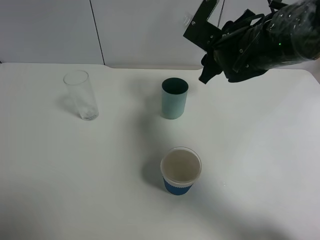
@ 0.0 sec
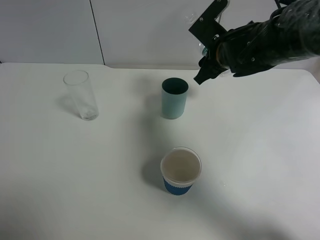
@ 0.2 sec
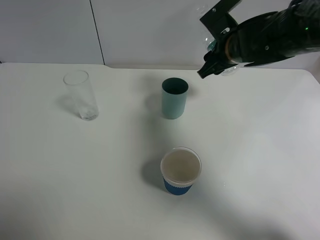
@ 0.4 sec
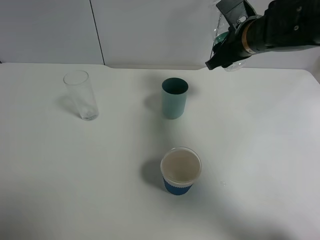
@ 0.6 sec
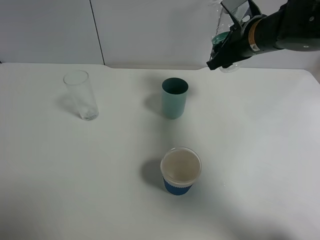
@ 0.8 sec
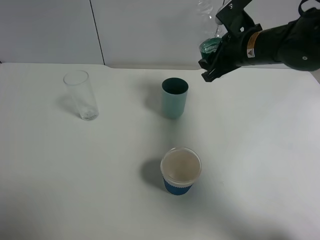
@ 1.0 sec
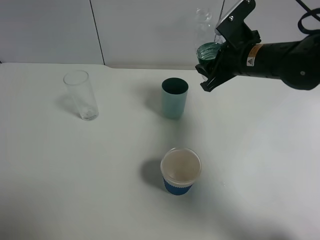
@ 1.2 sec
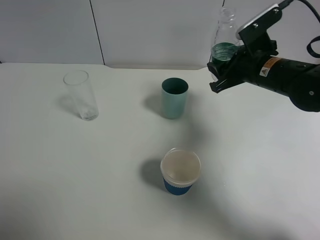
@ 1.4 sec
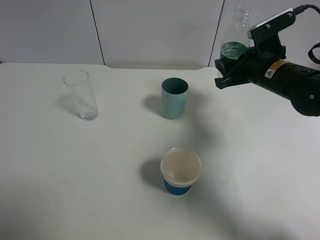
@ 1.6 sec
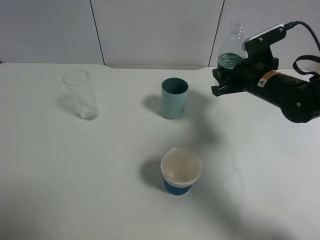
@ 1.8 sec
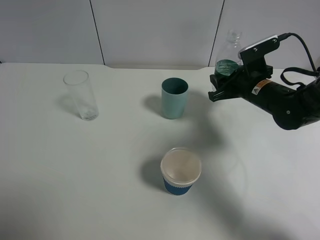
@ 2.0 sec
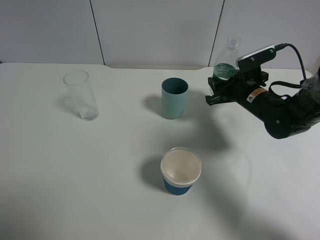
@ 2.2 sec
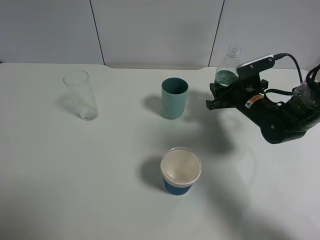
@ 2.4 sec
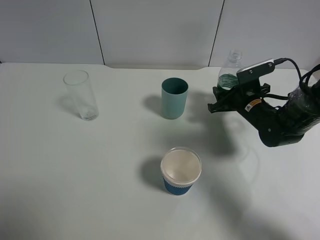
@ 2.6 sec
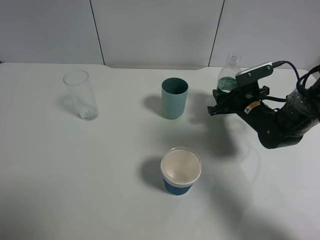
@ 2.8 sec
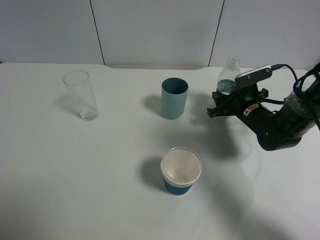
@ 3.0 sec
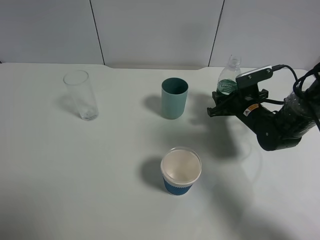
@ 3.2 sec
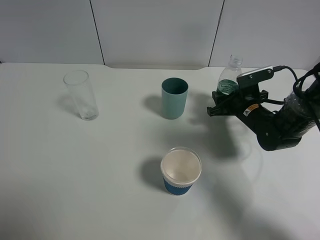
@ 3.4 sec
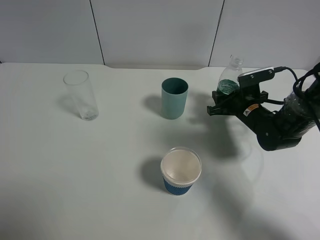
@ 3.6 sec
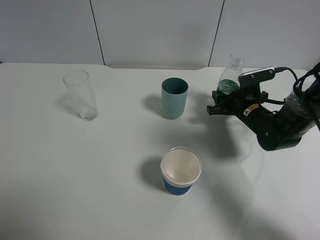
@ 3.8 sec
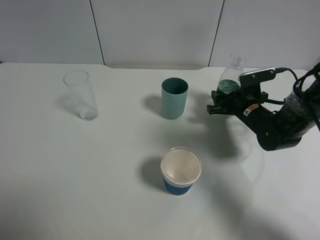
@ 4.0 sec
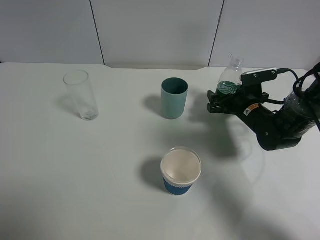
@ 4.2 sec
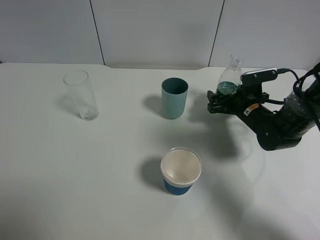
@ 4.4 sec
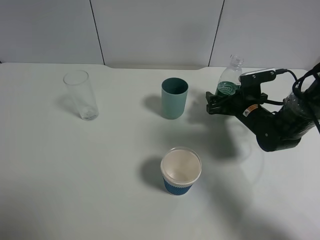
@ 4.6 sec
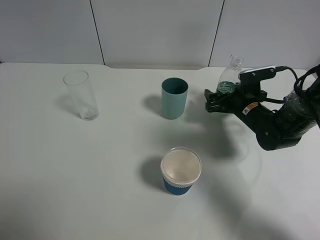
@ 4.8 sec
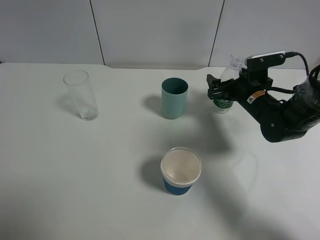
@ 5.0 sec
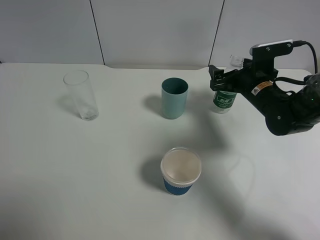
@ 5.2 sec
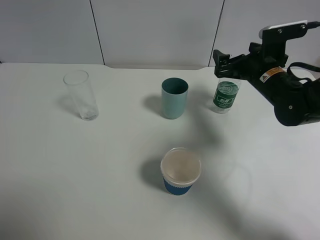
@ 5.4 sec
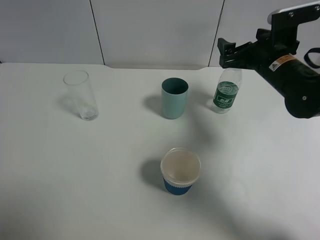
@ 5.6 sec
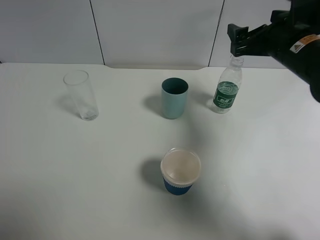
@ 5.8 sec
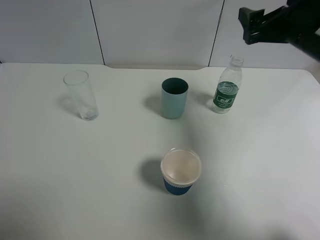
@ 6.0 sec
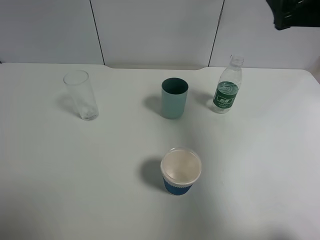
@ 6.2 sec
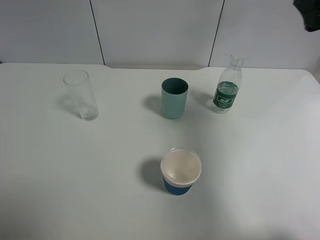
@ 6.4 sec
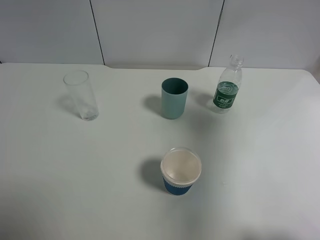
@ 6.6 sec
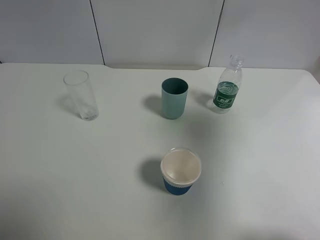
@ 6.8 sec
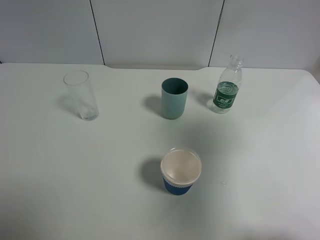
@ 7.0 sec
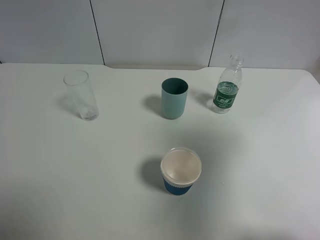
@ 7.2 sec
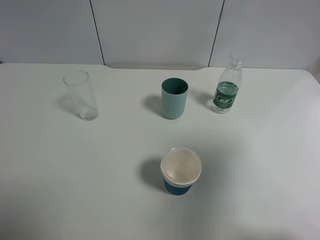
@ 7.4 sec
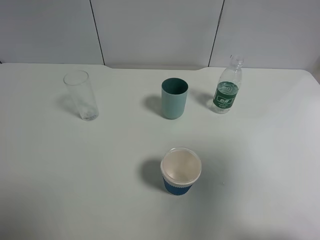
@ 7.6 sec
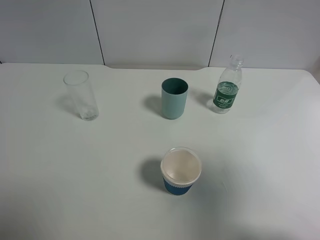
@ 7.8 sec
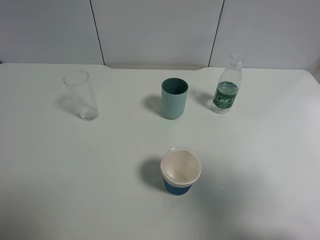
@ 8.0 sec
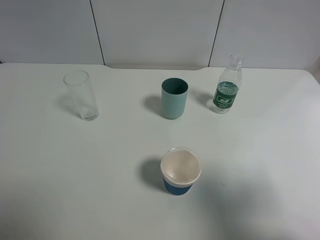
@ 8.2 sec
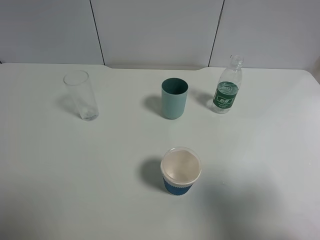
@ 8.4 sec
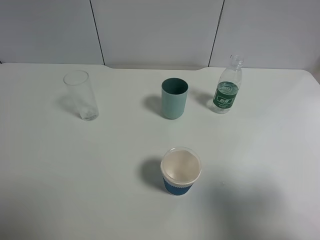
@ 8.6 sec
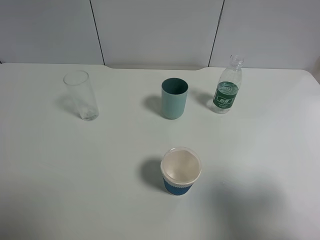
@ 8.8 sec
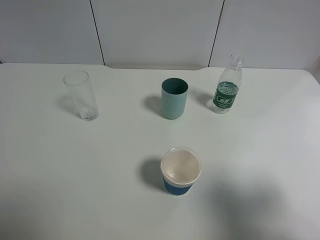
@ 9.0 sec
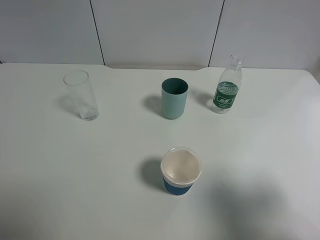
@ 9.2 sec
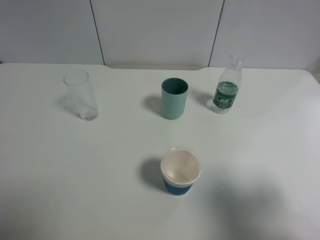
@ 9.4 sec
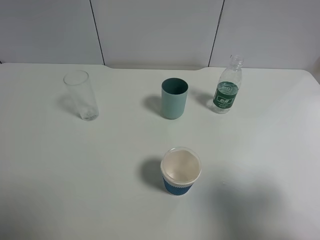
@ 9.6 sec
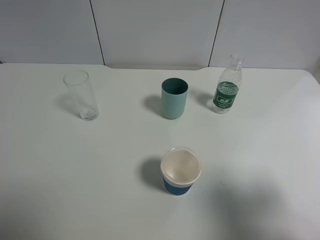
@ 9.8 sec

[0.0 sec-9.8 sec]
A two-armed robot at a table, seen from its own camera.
Task of the whole recording: use a gripper to hold the bottle of the drink and pour it into a random cup.
Step, 0.0 sec to 5.0 sec: Place the mineral water bottle on the table with the right gripper.
0.0 sec to 1.4 sec: The right gripper heads to the right, covering about 10 cm.
1.4 sec to 2.8 sec: The right gripper travels downward by some 10 cm.
2.8 sec to 4.2 sec: The right gripper opens.
4.2 sec to 5.6 sec: The right gripper moves upward, about 15 cm.
5.6 sec to 7.0 sec: The right gripper goes some 30 cm backward and upward.
7.0 sec to 8.4 sec: The right gripper shifts about 15 cm backward and downward.

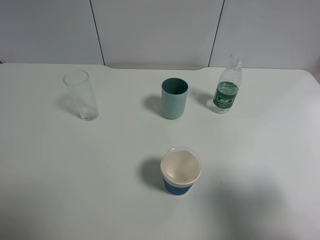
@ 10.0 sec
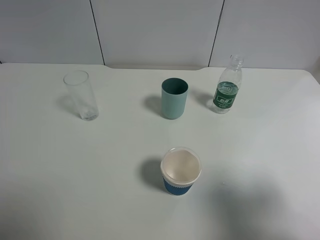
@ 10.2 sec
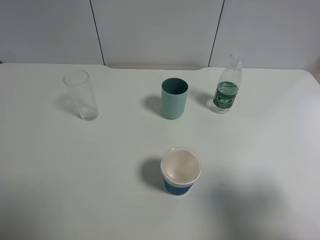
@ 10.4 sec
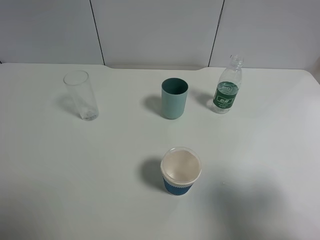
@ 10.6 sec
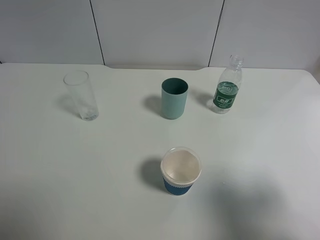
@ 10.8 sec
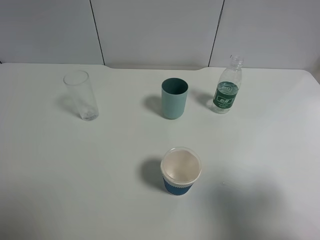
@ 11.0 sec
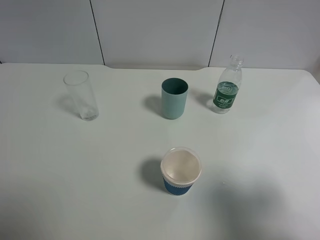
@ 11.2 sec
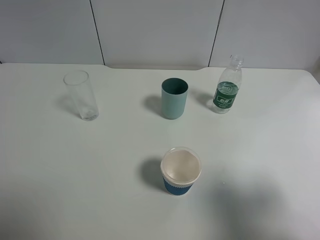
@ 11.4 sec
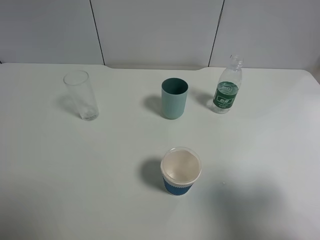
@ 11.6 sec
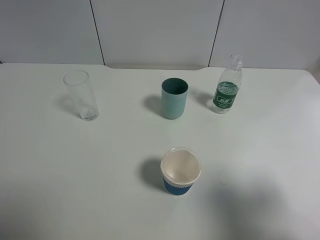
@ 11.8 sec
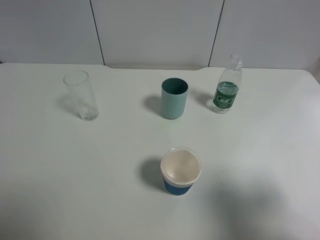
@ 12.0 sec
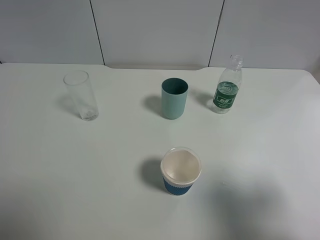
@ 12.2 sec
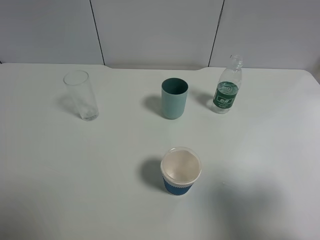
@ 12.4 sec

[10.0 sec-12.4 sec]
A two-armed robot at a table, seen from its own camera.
Task of the whole recording: use a gripper to hold the bottle of the drink and pour it into a random cup.
10.0 sec to 12.4 sec: Neither gripper changes place.
